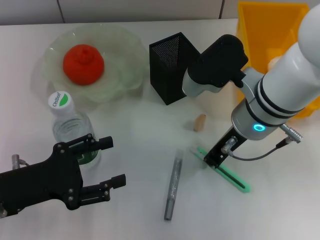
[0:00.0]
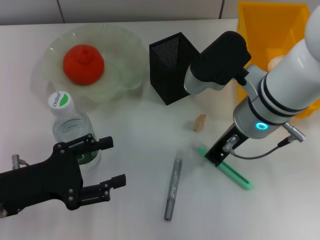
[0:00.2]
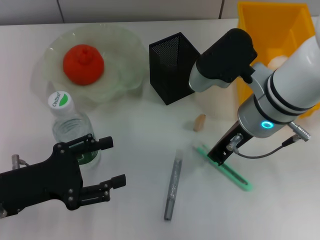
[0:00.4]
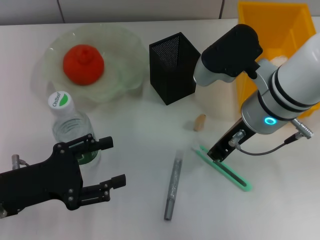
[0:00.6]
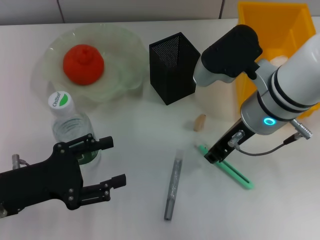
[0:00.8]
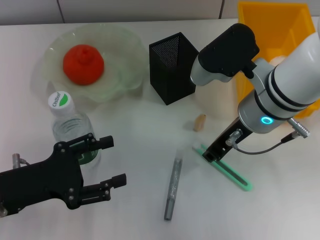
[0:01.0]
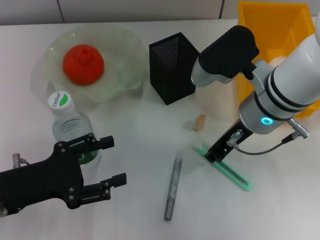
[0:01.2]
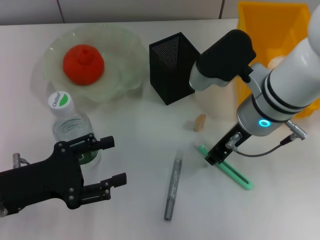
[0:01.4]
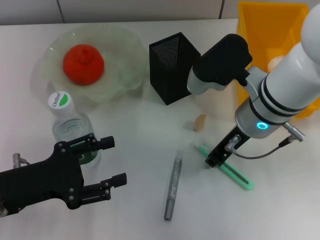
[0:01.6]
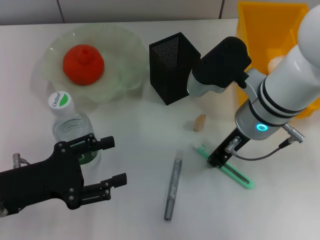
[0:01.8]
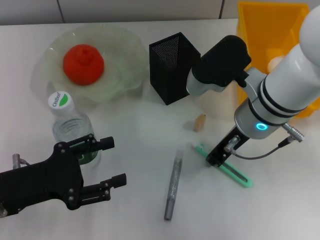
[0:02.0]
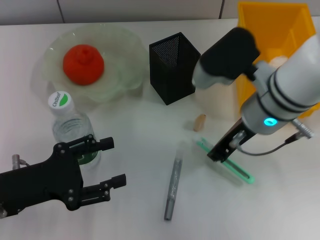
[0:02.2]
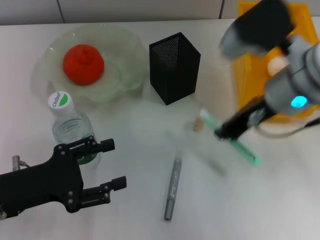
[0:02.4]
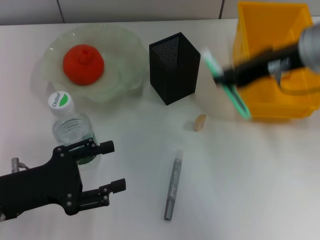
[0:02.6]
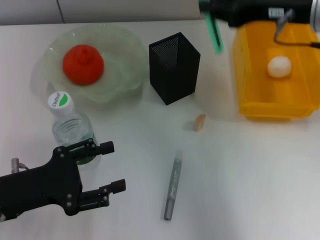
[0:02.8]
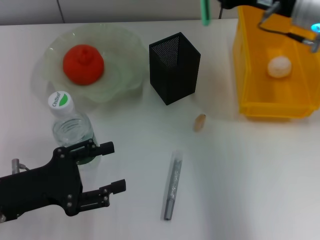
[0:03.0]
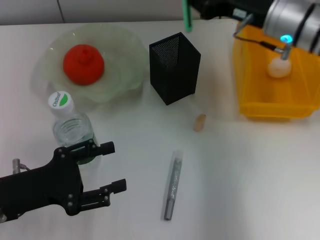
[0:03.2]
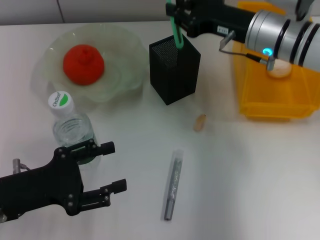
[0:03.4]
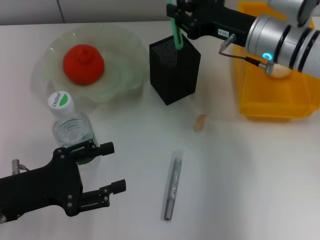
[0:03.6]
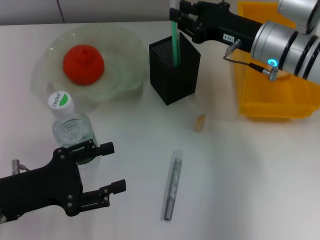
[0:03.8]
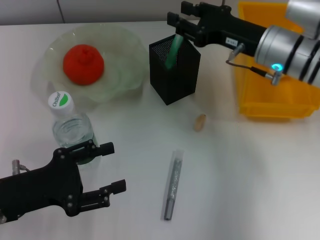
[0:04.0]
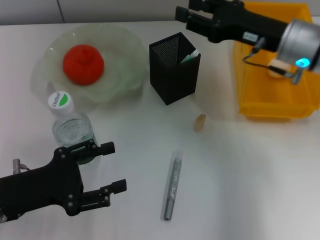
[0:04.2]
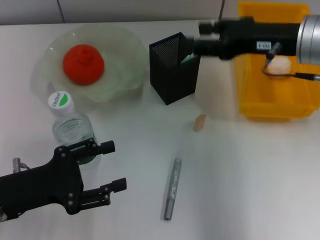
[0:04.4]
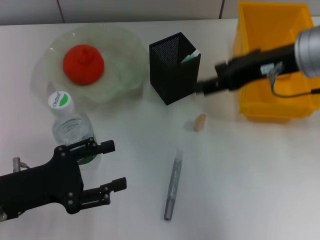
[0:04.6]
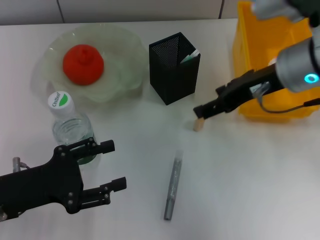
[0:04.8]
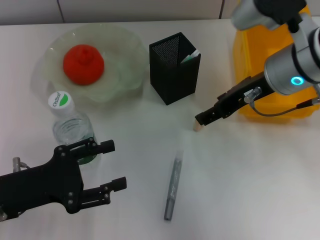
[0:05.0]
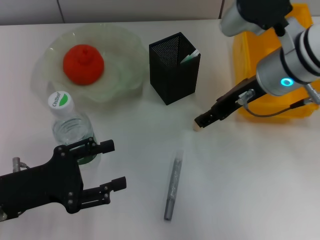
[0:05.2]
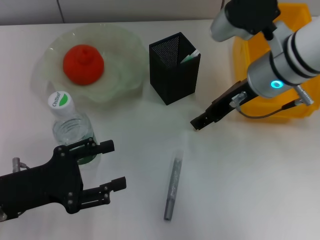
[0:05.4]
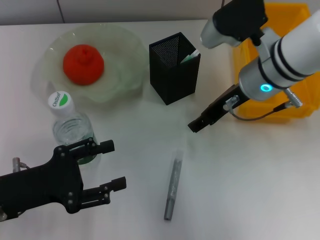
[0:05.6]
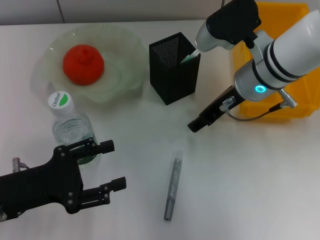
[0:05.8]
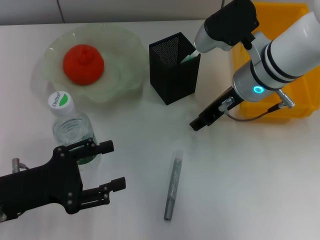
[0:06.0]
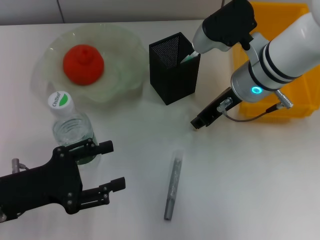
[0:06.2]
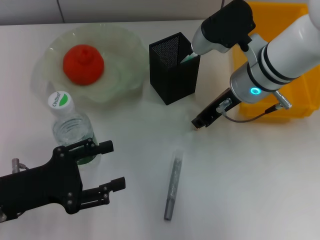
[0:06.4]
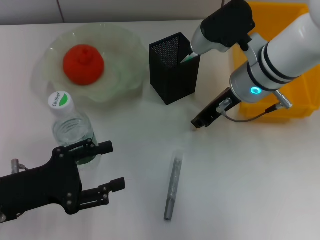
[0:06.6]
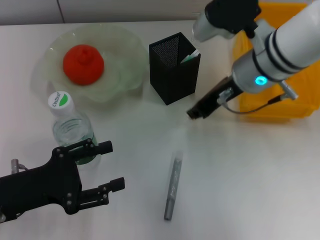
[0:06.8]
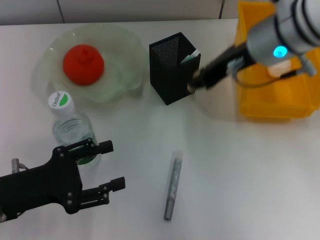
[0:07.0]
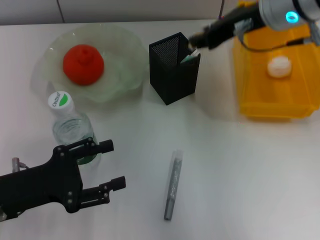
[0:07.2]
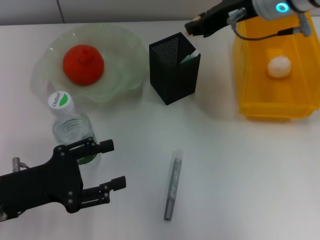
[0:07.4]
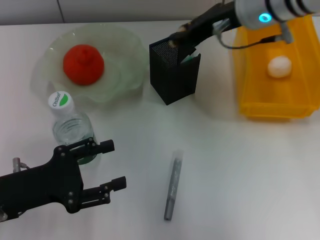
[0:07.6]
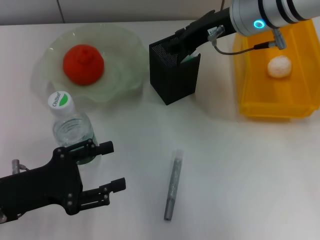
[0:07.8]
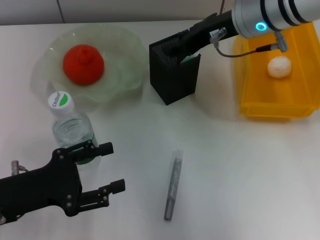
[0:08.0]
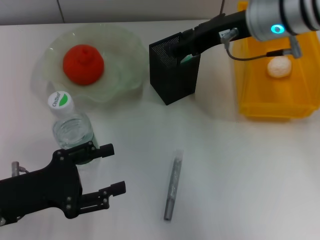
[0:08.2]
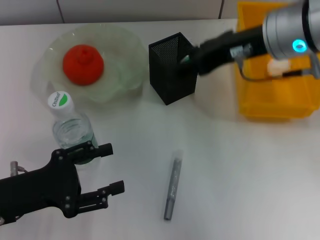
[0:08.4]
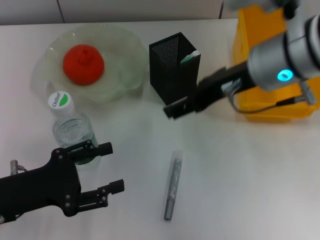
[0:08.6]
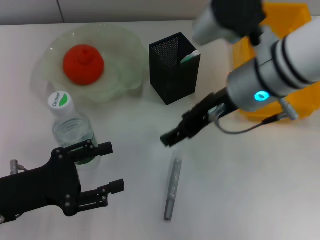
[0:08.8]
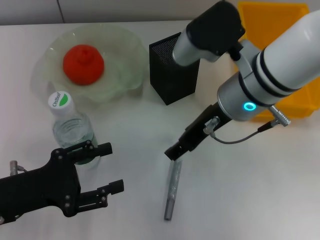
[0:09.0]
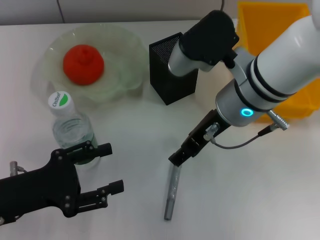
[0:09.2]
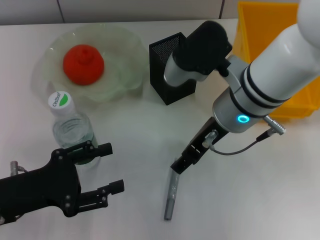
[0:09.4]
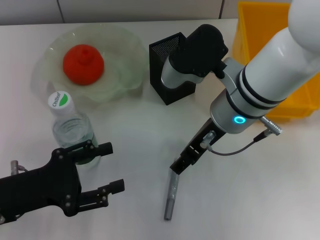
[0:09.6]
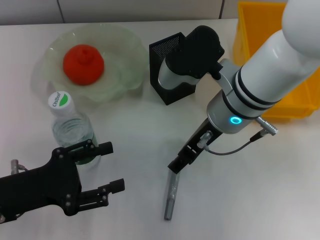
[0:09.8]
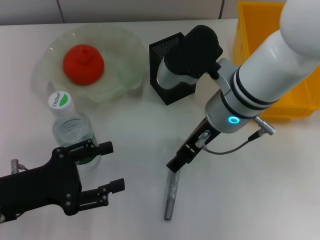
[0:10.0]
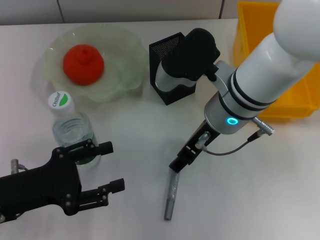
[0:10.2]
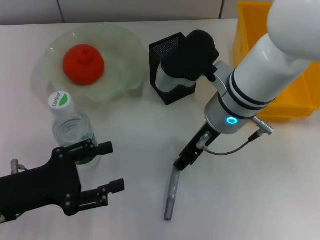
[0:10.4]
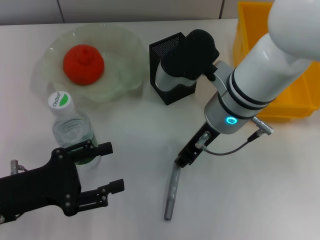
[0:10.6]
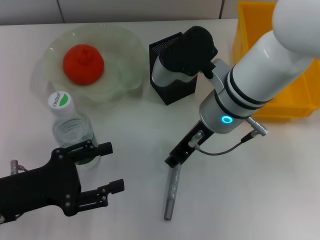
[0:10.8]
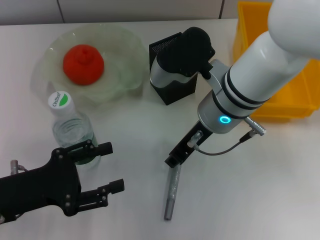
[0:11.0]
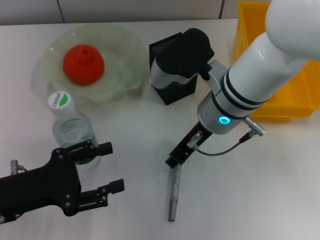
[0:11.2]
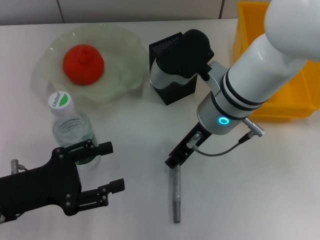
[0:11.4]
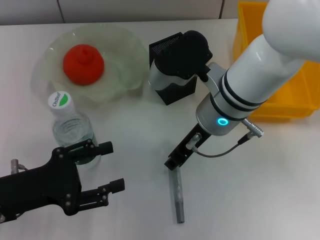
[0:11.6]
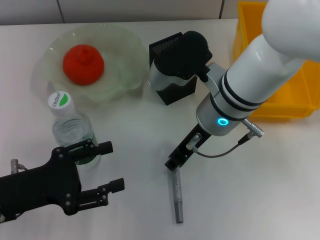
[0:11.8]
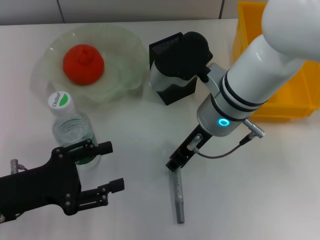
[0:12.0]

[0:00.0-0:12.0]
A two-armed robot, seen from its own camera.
Step, 0:01.8 to 0:04.2: Place the blue utility knife into the pen holder with the right hand.
Step, 0:04.6 to 0:06.2: Grab the eraser with the right hand.
Step, 0:06.6 to 0:08.0: Put the eraser into the pen holder with the right hand.
0:00.0 to 0:01.6: The grippers move only a little.
0:01.6 to 0:03.0: The right gripper goes some 10 cm to the right, upward and forward.
0:03.0 to 0:04.4: The right gripper reaches roughly 5 cm downward, then returns, and opens.
0:04.4 to 0:06.0: The right gripper goes roughly 10 cm to the left and downward.
0:06.0 to 0:07.6: The right gripper is displaced upward by about 10 cm, and closes up.
0:07.6 to 0:09.0: The right gripper heads backward, covering some 10 cm, and opens up.
0:09.0 to 0:10.4: The grippers stay close to where they were, moving slightly.
0:10.4 to 0:12.0: The right gripper closes its fingers.

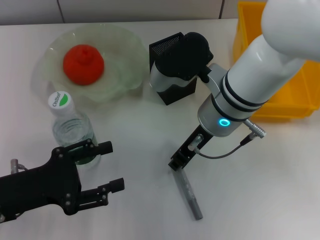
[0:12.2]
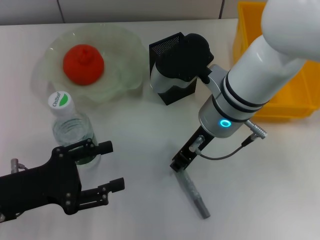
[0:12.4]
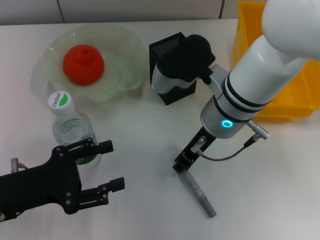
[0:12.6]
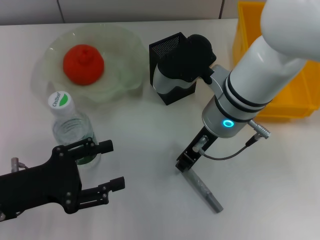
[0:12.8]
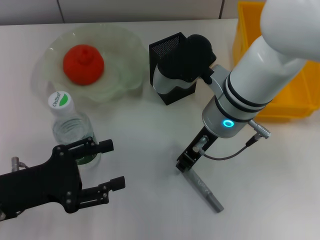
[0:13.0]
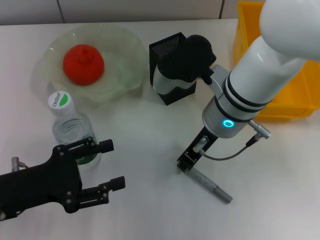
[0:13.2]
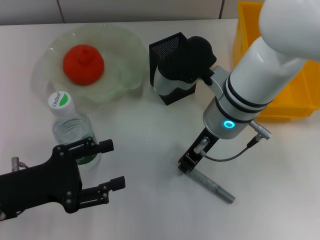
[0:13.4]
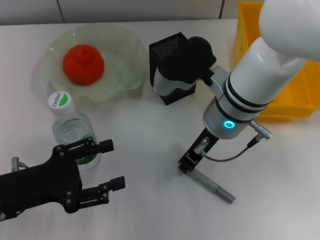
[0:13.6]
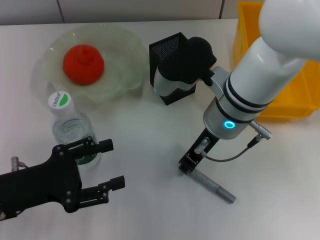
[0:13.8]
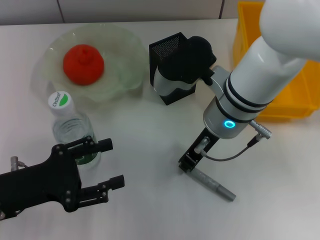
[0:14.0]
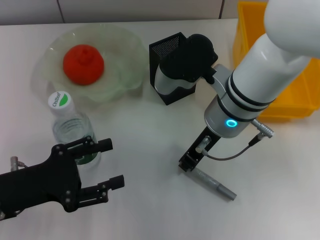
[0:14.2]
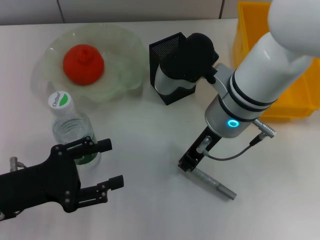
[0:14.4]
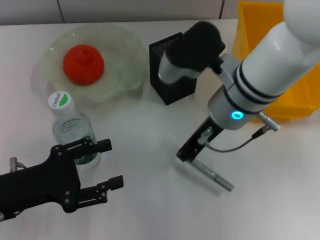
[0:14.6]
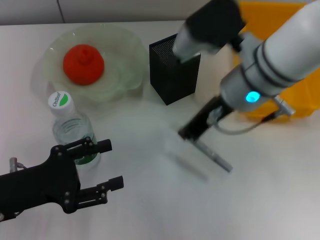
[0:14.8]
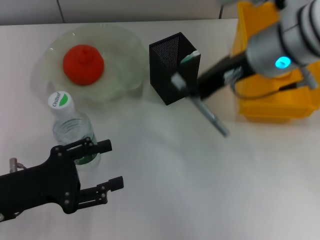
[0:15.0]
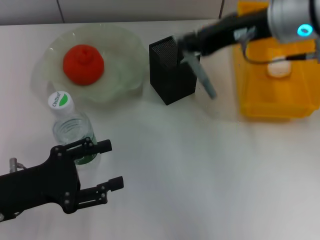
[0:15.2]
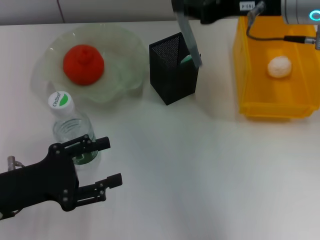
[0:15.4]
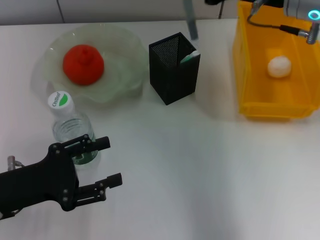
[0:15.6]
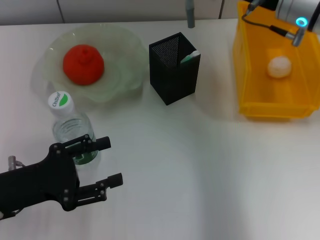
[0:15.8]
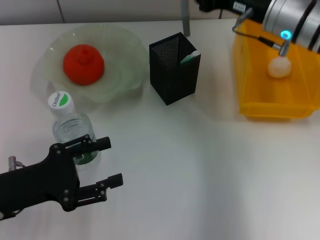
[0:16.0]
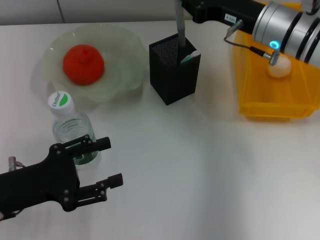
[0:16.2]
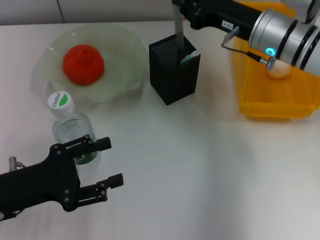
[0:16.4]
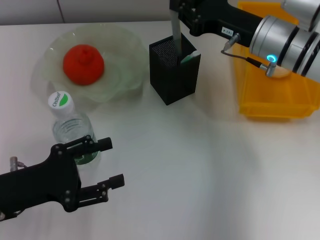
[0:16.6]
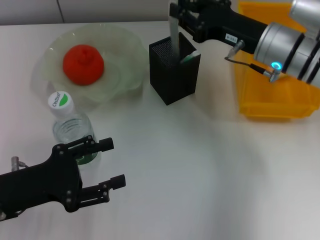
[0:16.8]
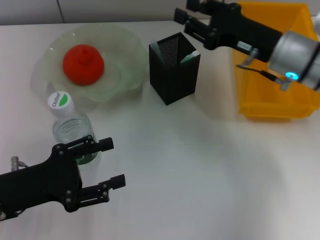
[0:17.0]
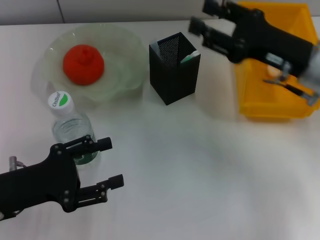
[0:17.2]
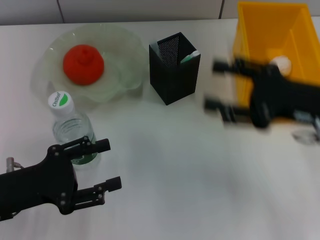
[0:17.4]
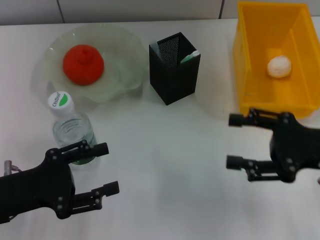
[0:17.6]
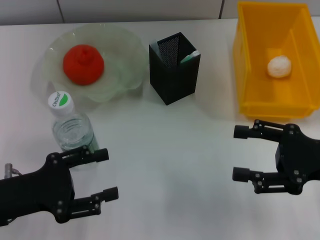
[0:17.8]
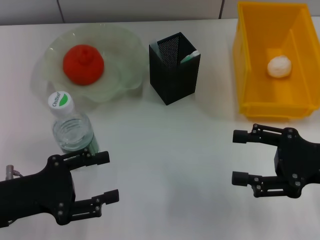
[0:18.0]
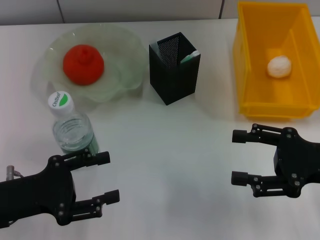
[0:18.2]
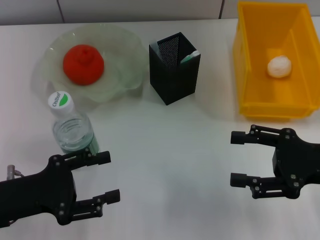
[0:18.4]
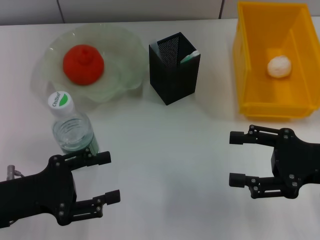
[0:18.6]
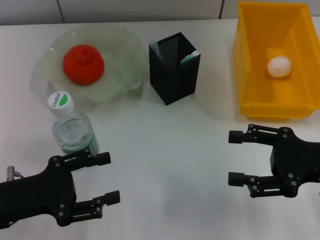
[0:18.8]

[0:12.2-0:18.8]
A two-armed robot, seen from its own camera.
Step, 0:14.2 to 0:17.0: Place the gray glue into the pen holder with the right hand.
0:12.2 to 0:13.8: Both grippers stay put.
0:13.8 to 0:15.4: The right gripper moves upward and to the right, about 15 cm.
0:15.4 to 0:17.2: The right gripper goes some 10 cm downward.
0:17.2 to 0:18.8: The right gripper goes about 10 cm backward and to the right, and opens its fingers.
